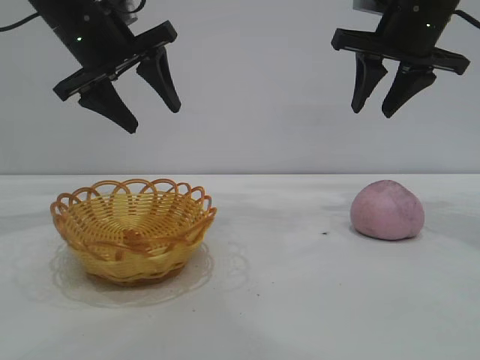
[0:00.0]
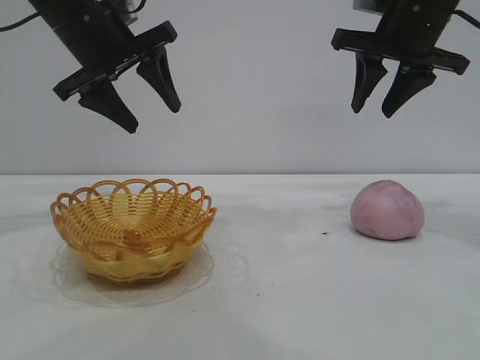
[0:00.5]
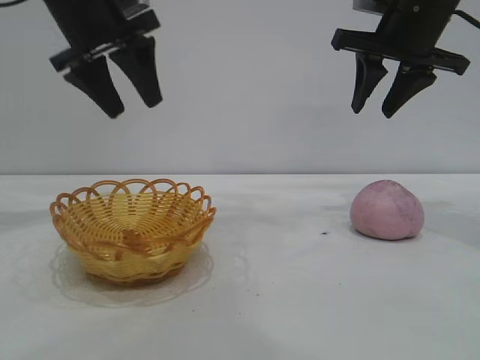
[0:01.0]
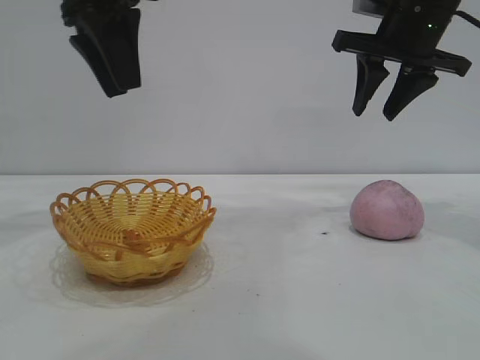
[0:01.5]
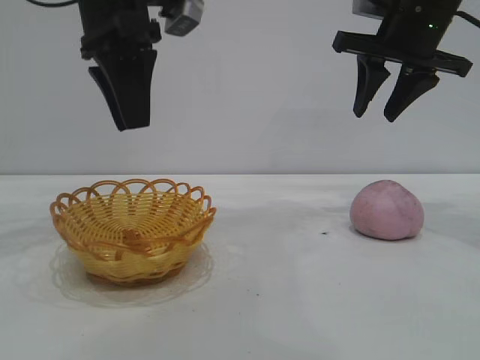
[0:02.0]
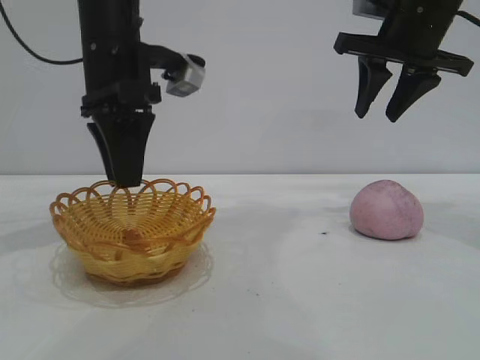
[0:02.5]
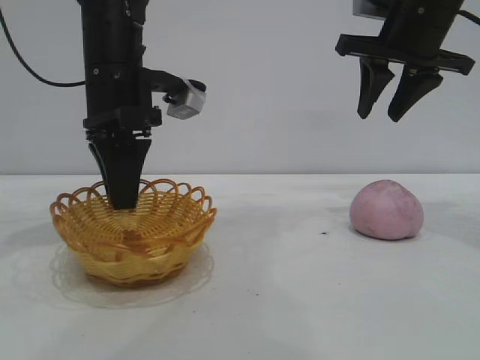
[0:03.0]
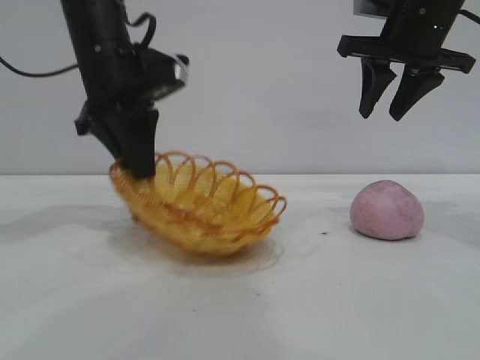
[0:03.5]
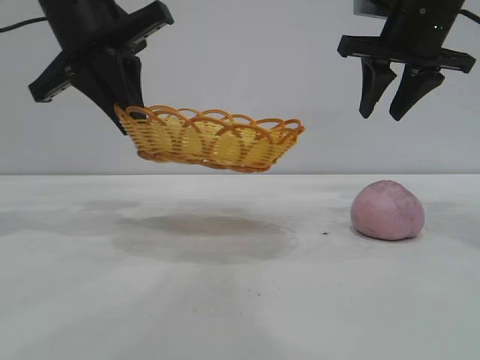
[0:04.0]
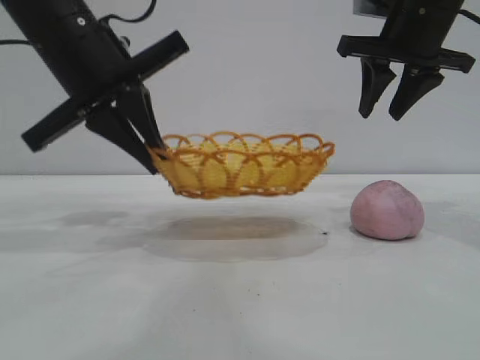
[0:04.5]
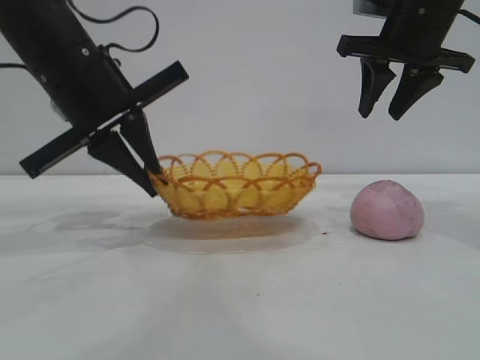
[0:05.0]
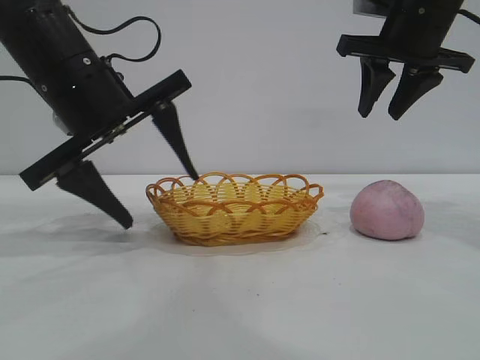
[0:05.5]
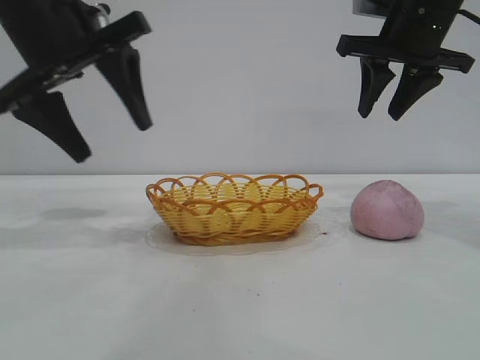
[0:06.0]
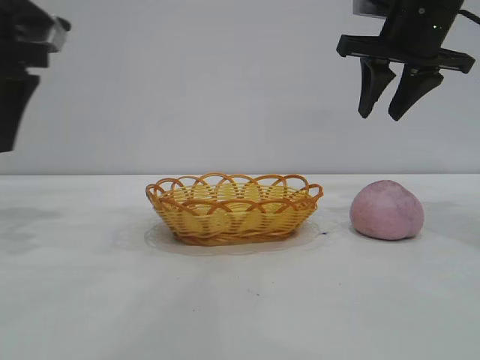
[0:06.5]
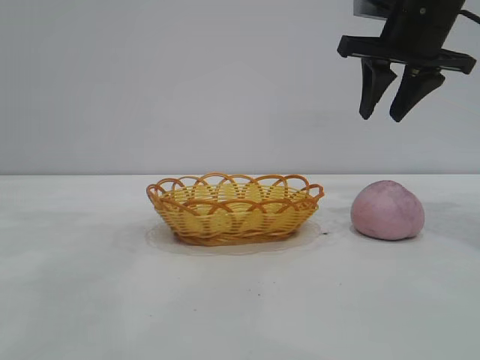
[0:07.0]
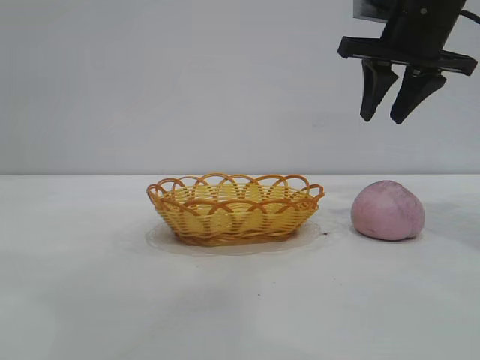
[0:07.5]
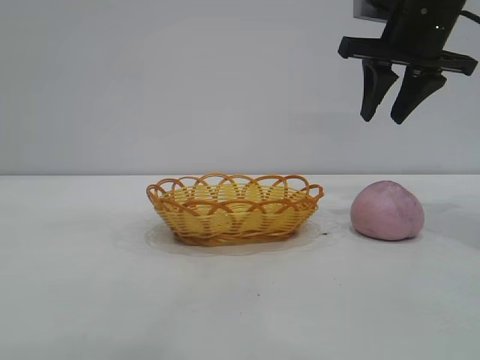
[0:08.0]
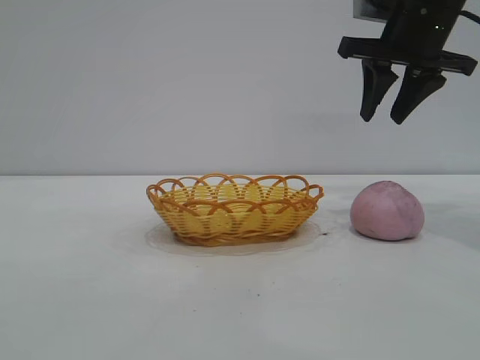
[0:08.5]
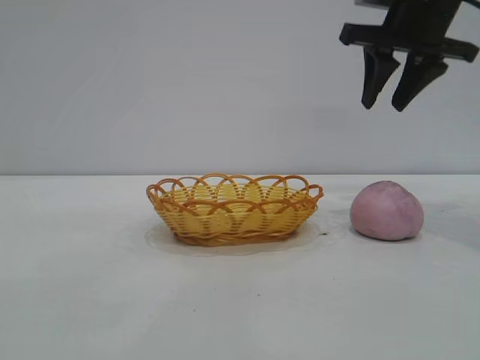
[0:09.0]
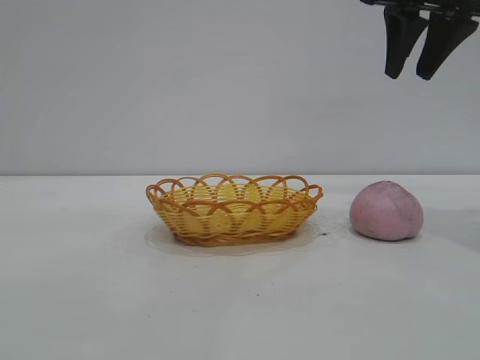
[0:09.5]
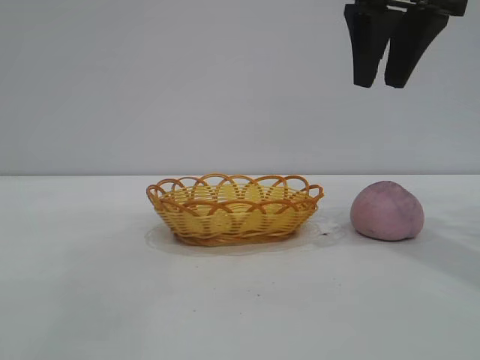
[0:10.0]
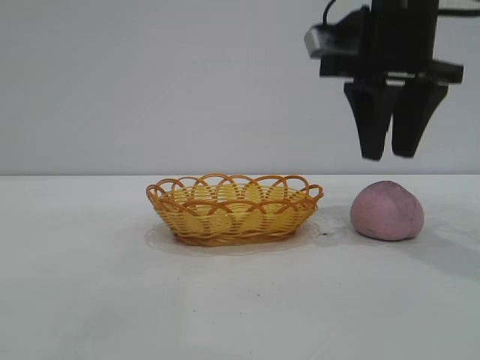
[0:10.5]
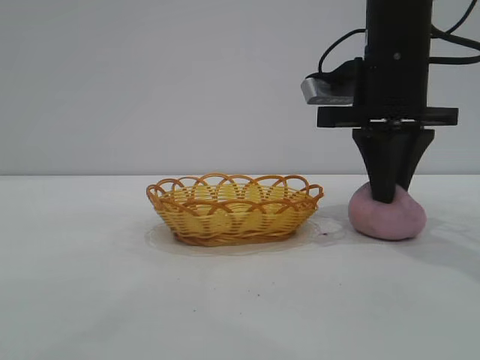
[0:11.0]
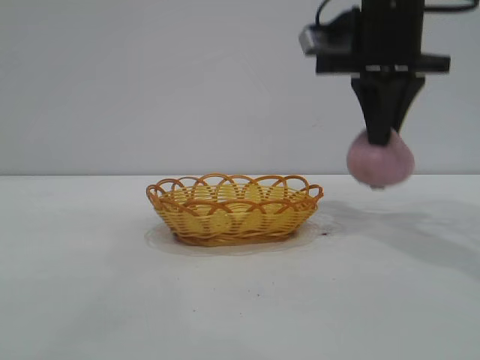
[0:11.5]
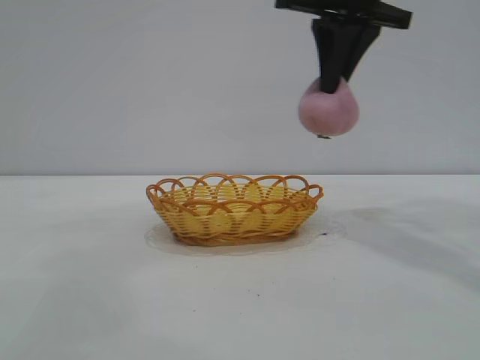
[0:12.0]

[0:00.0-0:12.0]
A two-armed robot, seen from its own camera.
Task of the whole recording: pick up the peach and put it into the basket.
Step, 0:00.0 to 0:06.0: Move the basket to the center of view.
Step, 0:06.5 to 0:11.5: Pick up the peach.

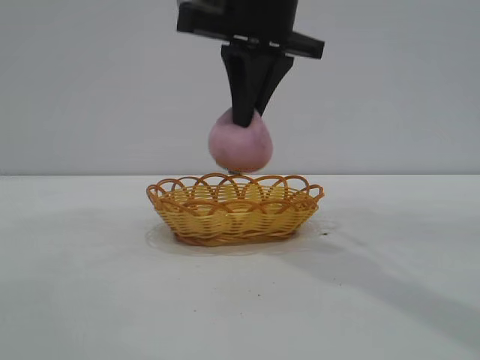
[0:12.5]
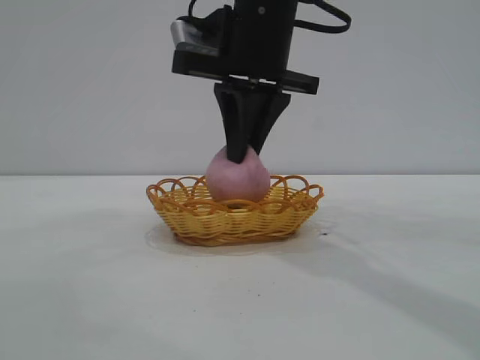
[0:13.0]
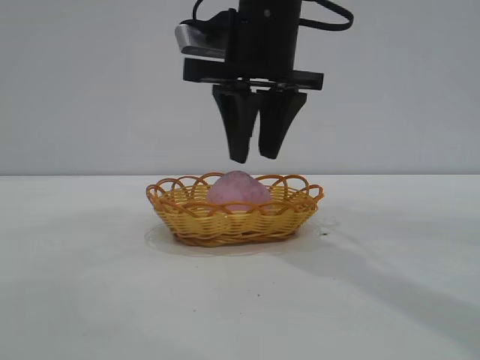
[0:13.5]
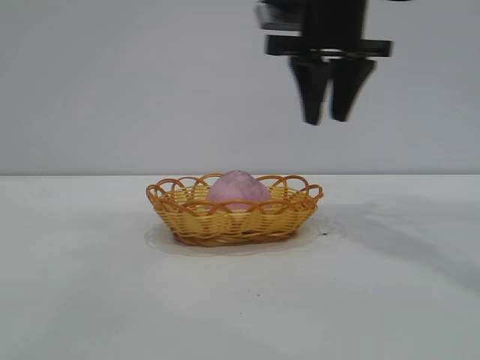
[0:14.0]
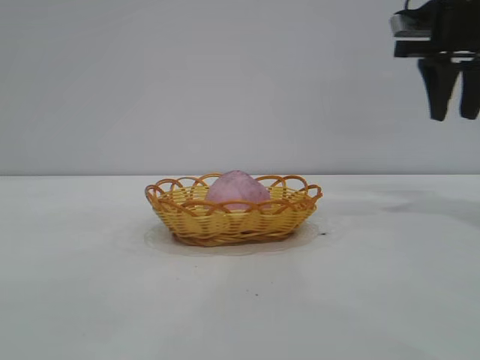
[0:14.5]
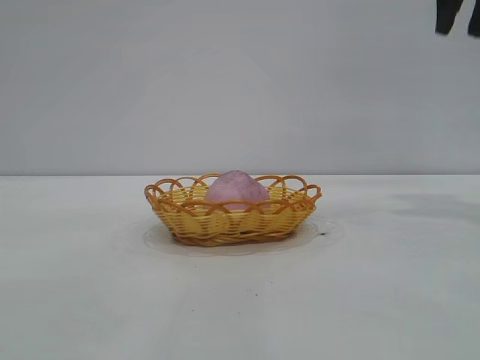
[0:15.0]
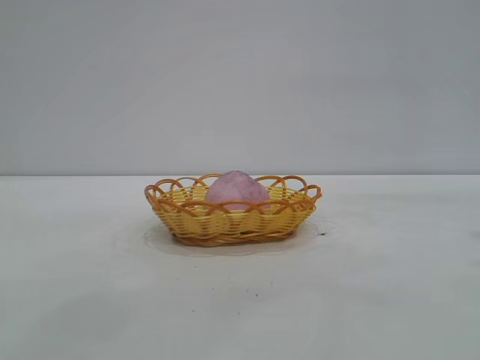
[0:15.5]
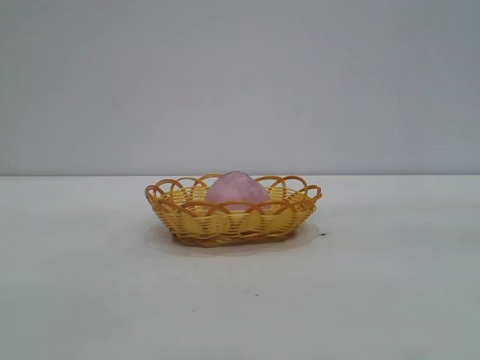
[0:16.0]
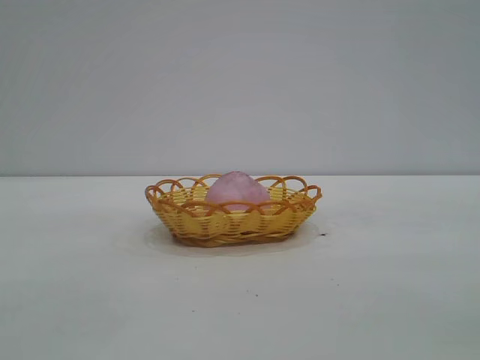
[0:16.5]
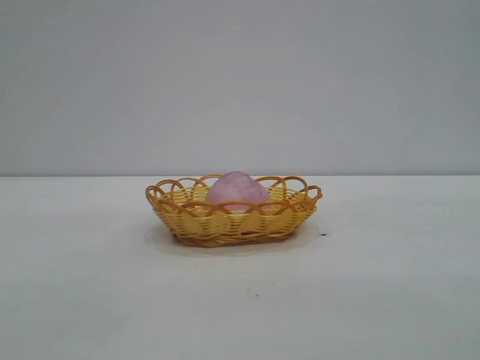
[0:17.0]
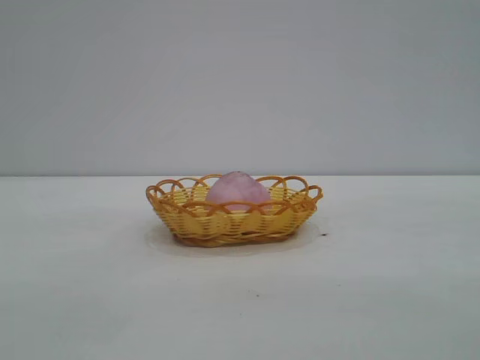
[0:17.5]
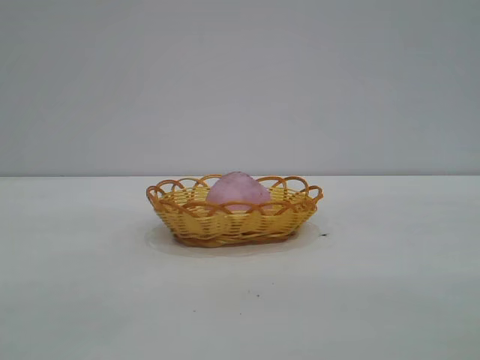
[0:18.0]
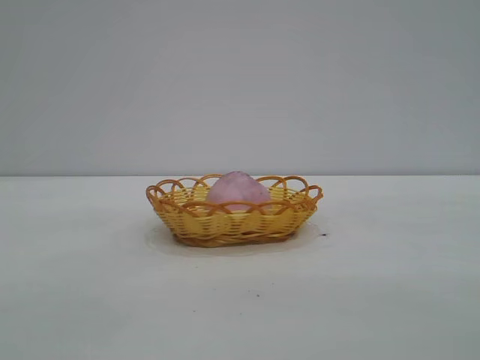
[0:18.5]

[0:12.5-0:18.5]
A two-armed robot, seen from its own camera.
Task of the whole recording: pick up the peach and put it into the basket.
Step, 0:12.5 to 0:13.5: place the peach into the basket.

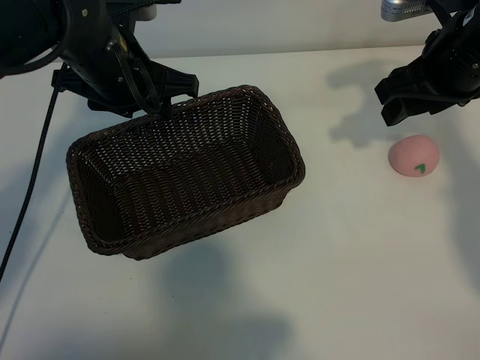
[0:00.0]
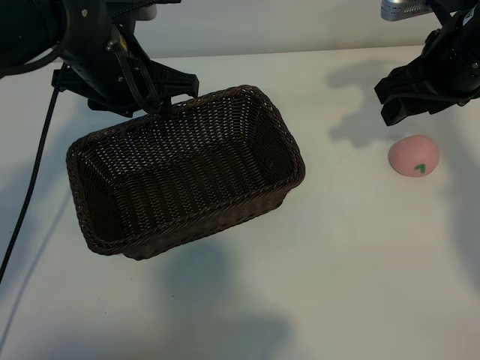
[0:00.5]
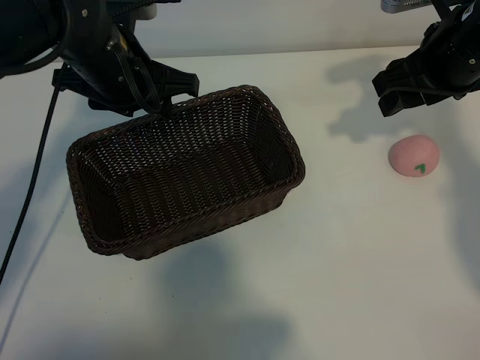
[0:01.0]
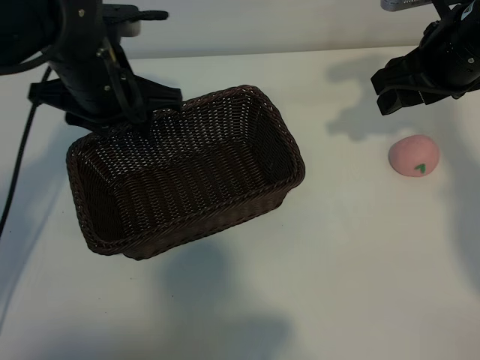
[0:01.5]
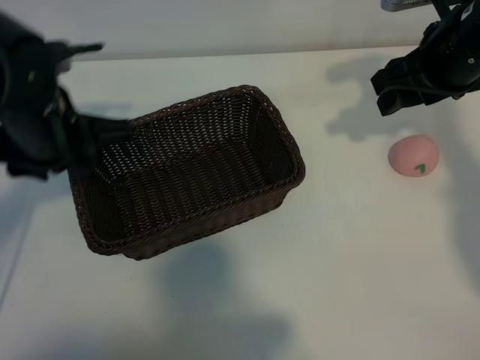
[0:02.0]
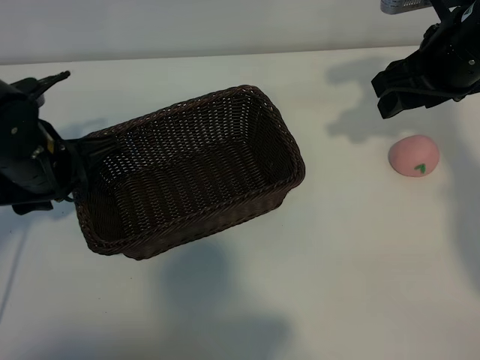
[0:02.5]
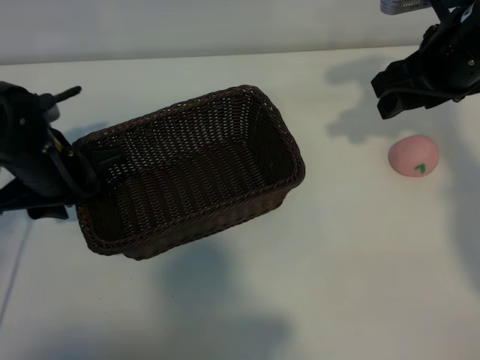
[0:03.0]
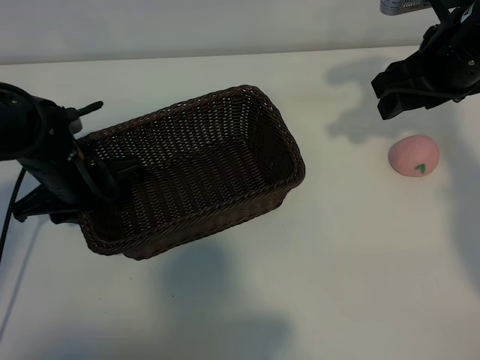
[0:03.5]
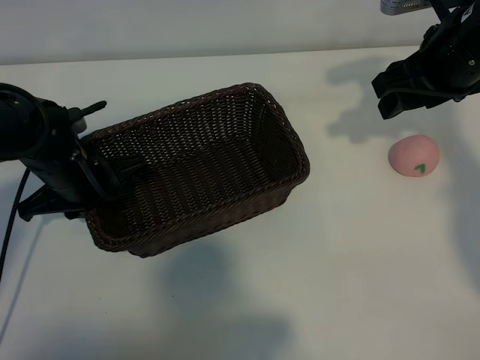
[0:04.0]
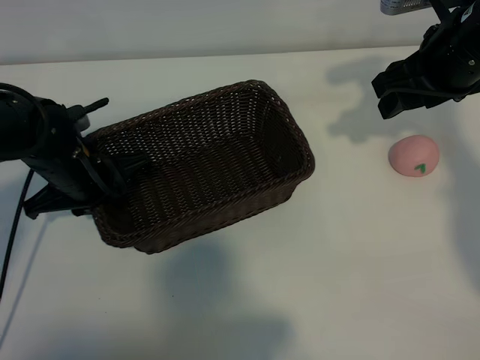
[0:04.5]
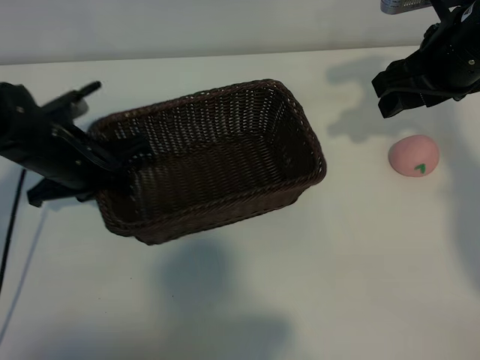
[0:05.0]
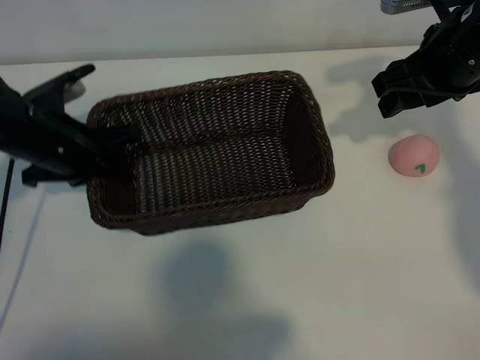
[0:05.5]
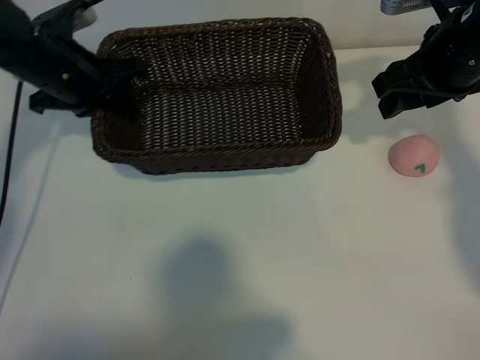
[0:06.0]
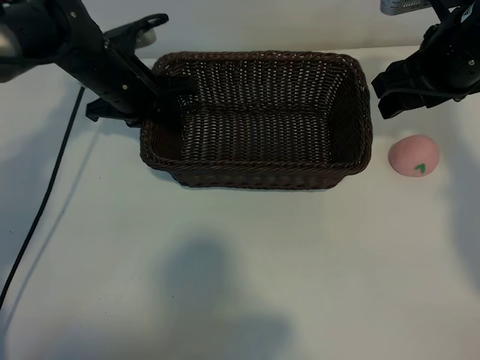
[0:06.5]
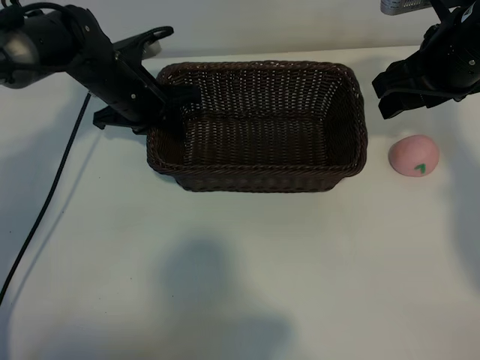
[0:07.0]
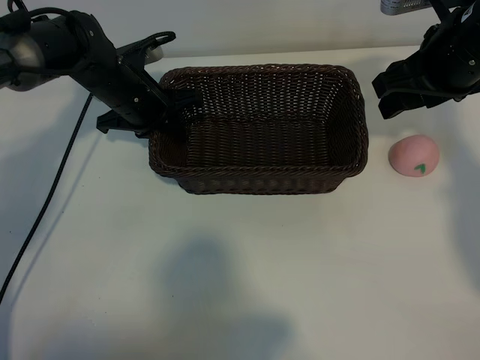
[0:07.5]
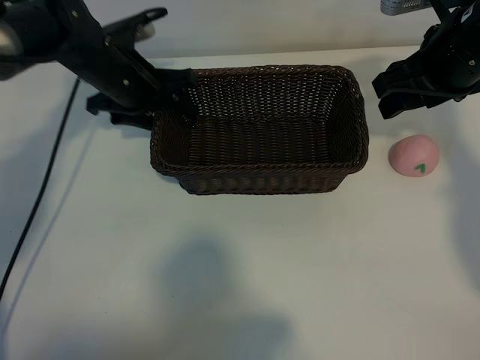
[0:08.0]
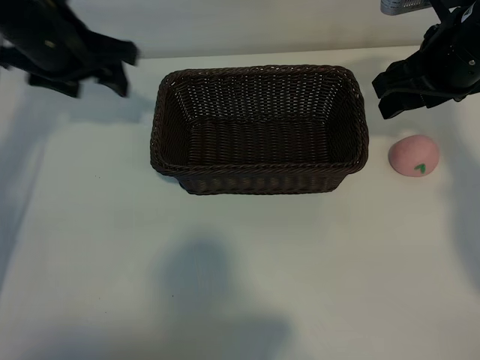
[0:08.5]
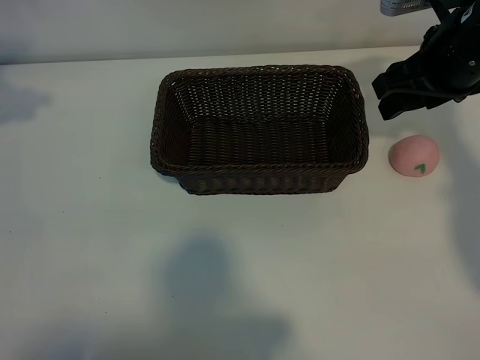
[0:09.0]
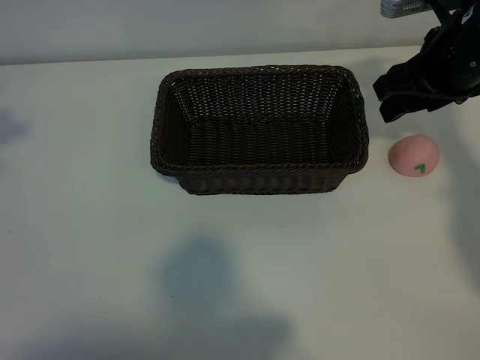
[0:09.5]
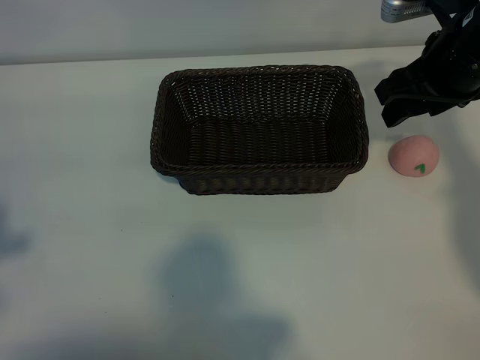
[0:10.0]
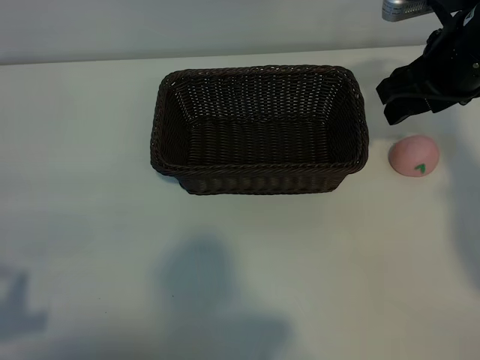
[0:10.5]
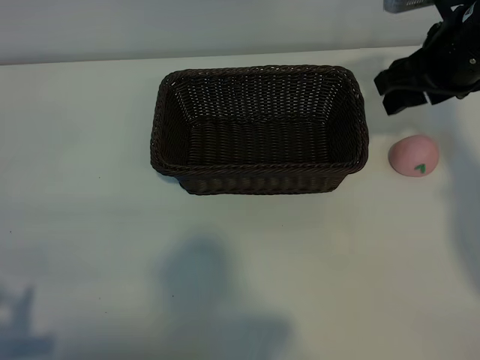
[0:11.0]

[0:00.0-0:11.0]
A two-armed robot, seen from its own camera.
Task of the whole recording: pick up the peach and put it into the basket.
Step, 0:01.0 to 0:04.0: Grasp the basket with left gripper.
Step, 0:04.5 to 0:08.0: Place the basket in the center of view with left gripper.
